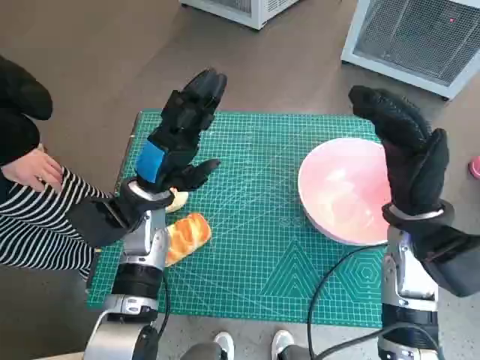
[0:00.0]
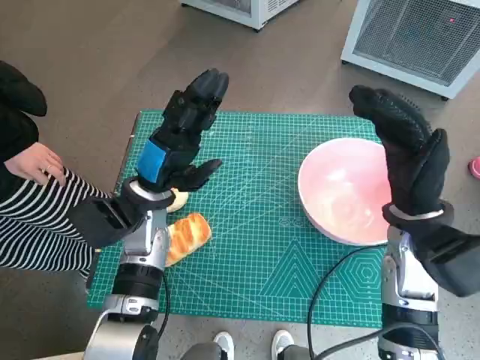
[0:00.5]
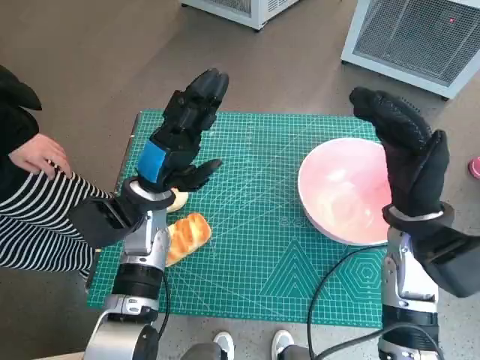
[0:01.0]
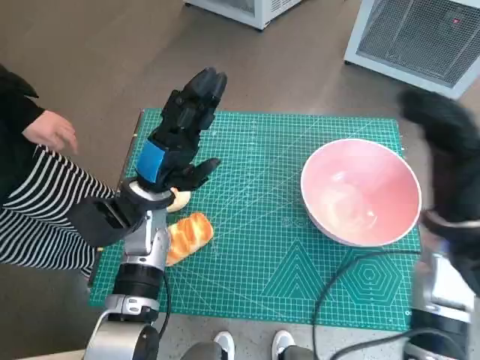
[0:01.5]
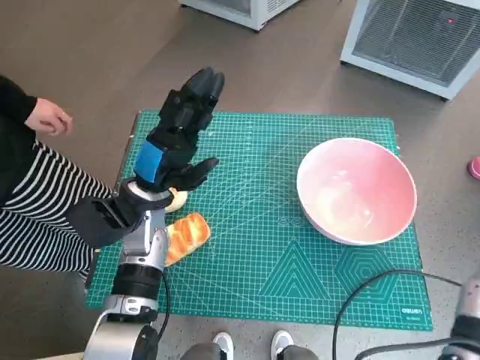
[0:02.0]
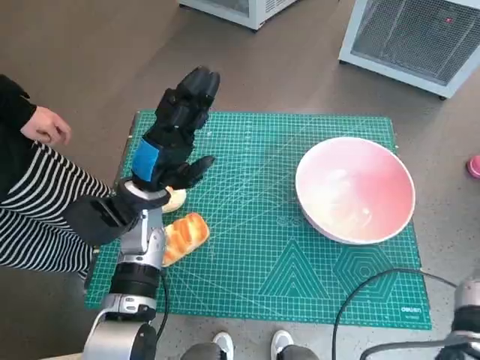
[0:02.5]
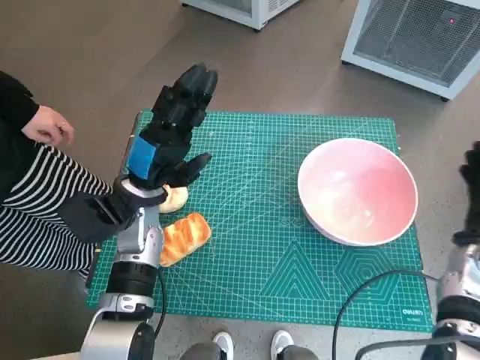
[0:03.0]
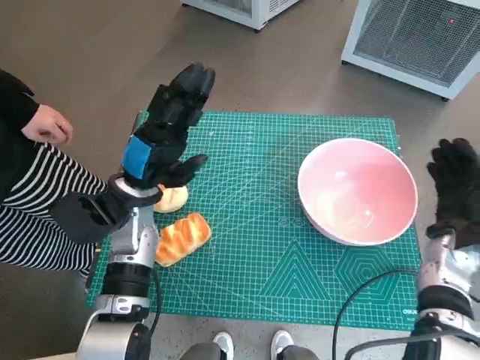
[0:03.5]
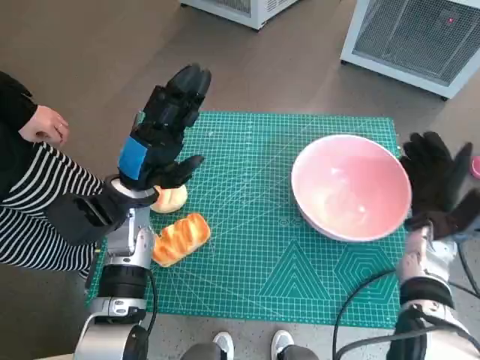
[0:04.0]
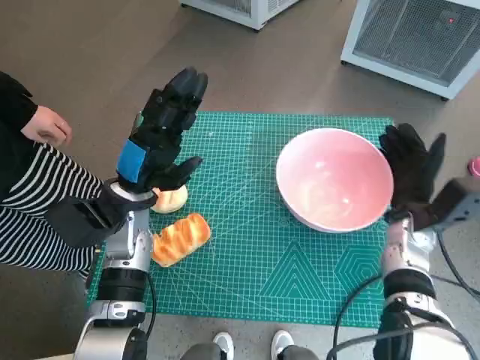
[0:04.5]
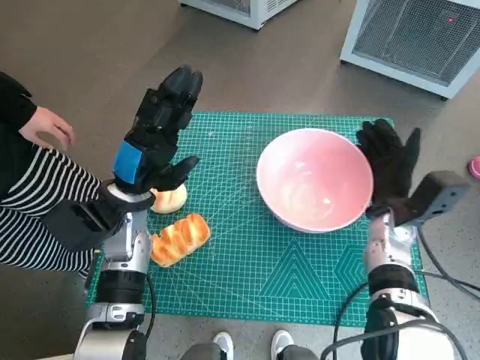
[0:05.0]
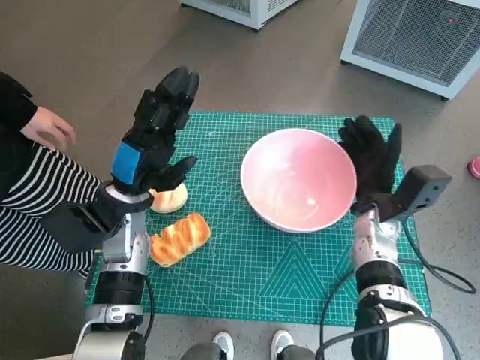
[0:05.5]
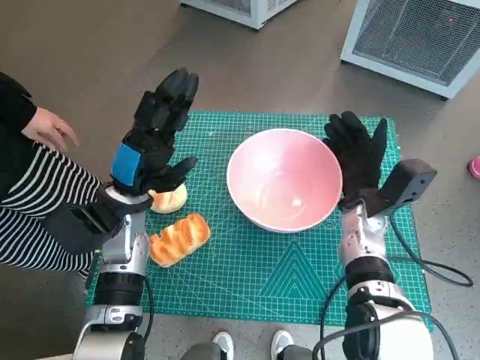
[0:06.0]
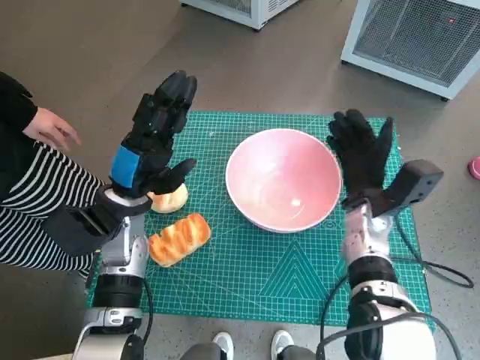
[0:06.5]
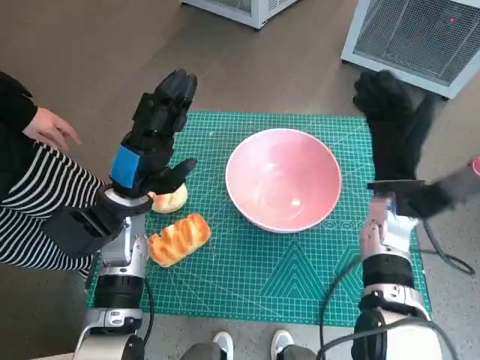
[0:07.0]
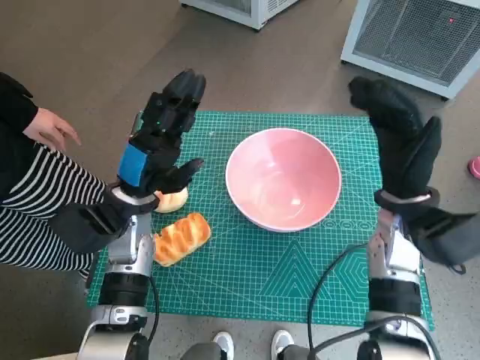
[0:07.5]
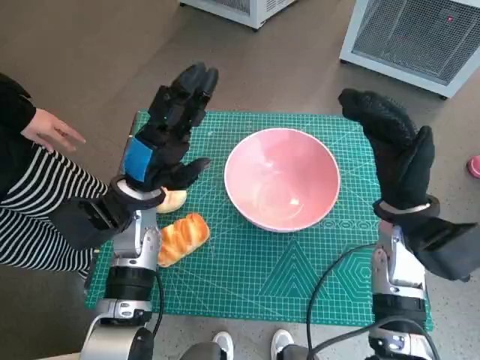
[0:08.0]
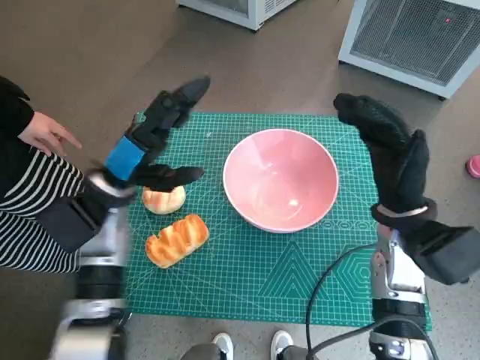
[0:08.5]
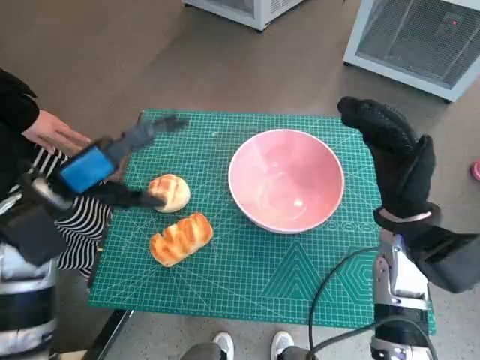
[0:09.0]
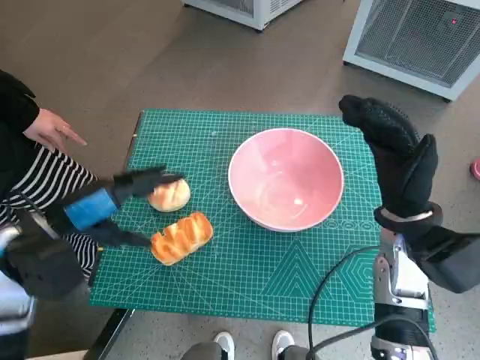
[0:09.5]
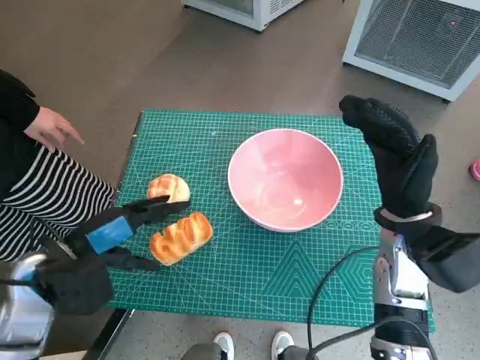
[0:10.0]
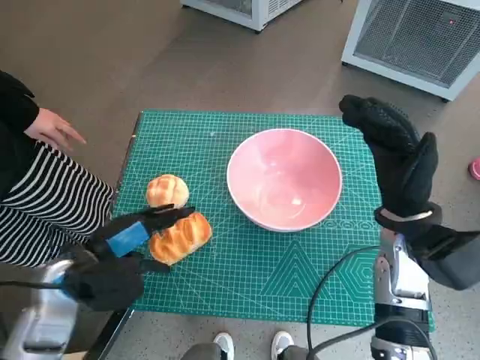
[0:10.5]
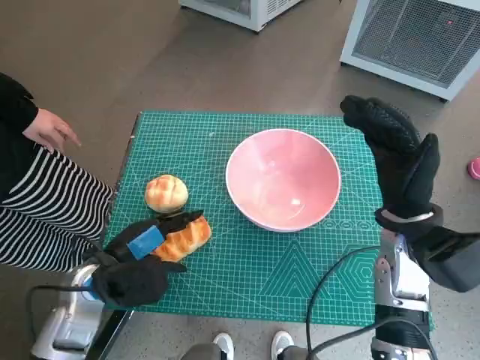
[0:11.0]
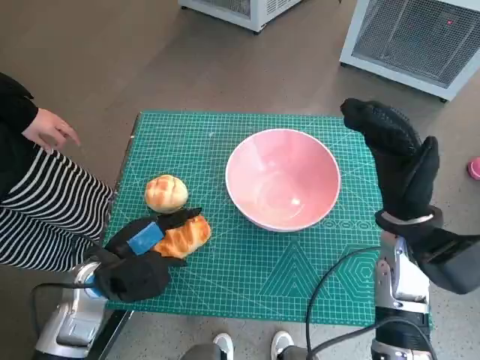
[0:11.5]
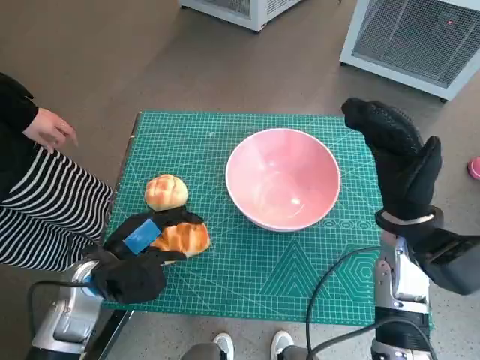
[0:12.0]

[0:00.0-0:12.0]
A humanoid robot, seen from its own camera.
Task of the whole recording: Push the bowl into the center of the table and put the bread into the bowl.
Step, 0:00.0 to 0:06.5: Move the pink bowl to the center of table with right hand.
Step, 0:07.0 to 0:11.5: Grasp the long bread with left hand.
0:02.0 to 0:04.0: The right hand goes approximately 10 cm downward and forward.
0:04.0 to 0:06.0: The right hand shifts about 10 cm to the left.
0:06.0 to 0:08.0: The right hand travels upward by some 5 cm.
0:08.0 to 0:10.0: The left hand travels backward and to the left by about 10 cm.
0:10.0 to 0:12.0: The left hand moves downward, approximately 5 cm.

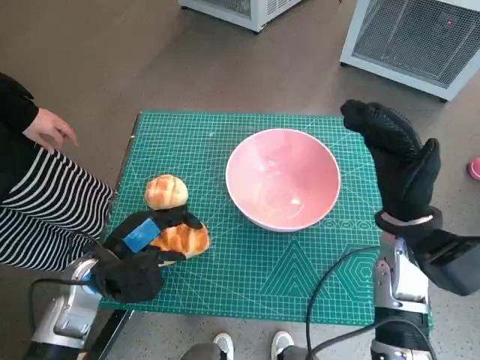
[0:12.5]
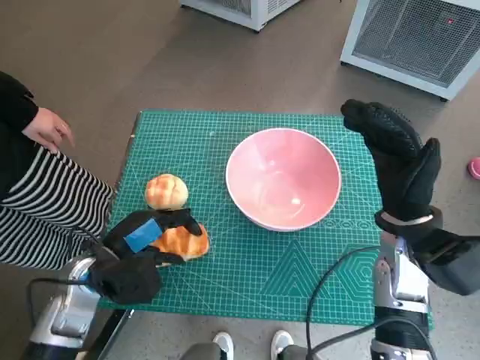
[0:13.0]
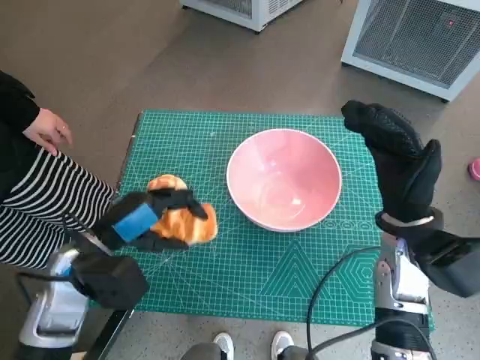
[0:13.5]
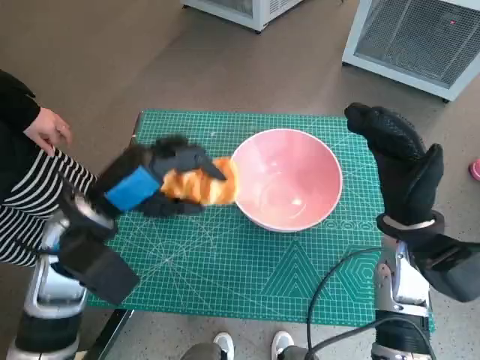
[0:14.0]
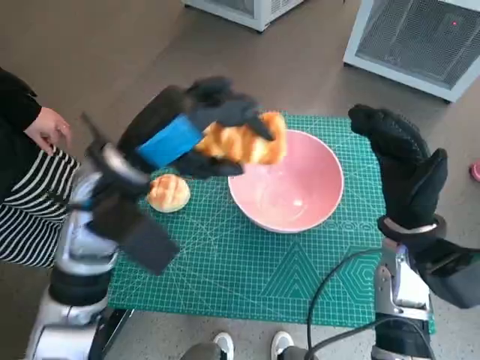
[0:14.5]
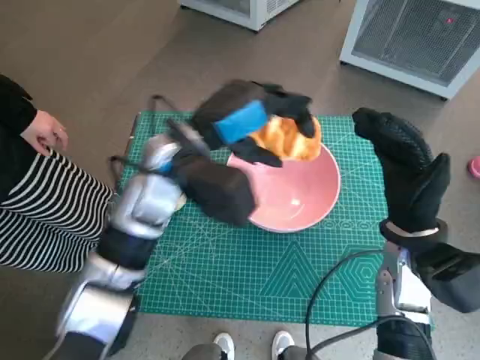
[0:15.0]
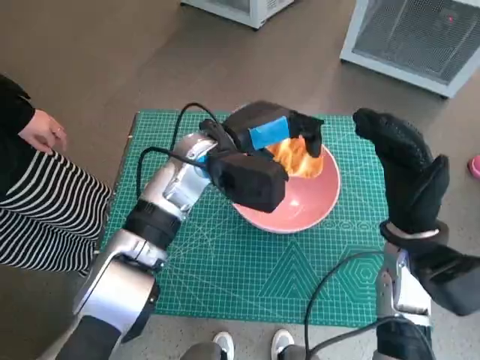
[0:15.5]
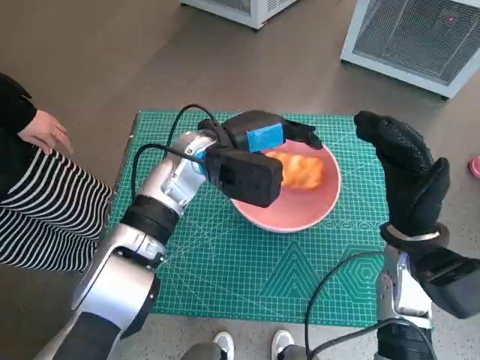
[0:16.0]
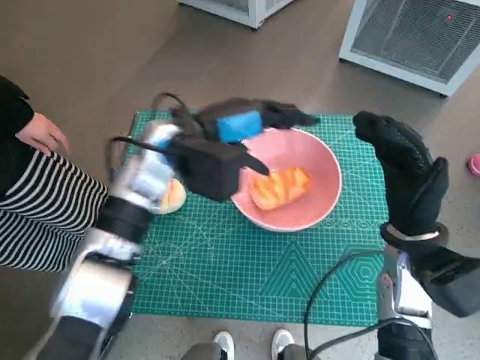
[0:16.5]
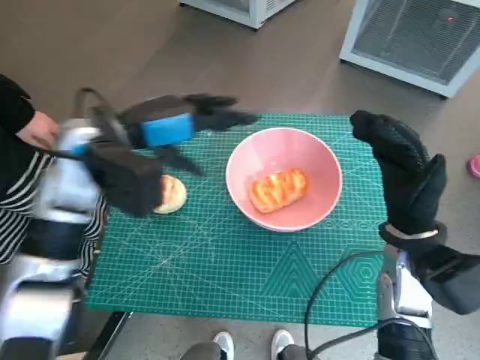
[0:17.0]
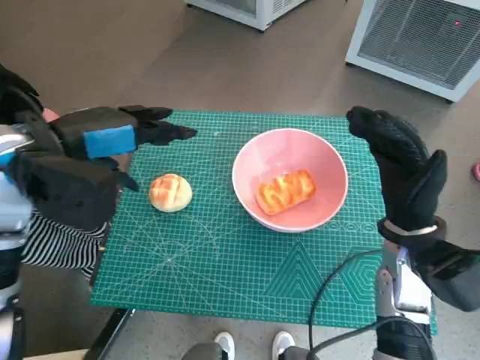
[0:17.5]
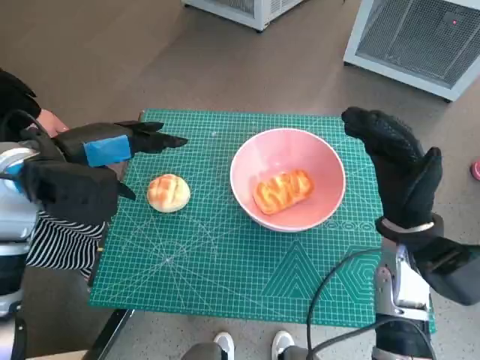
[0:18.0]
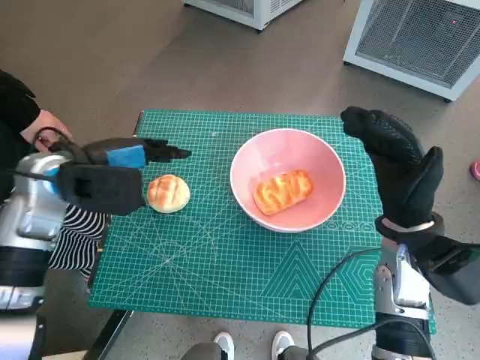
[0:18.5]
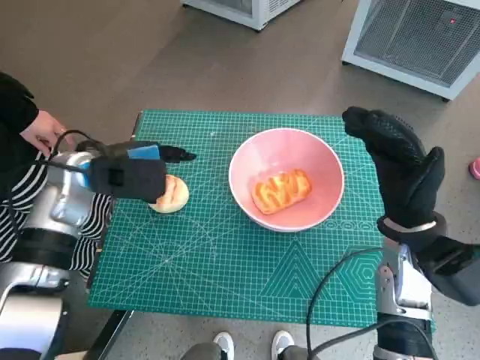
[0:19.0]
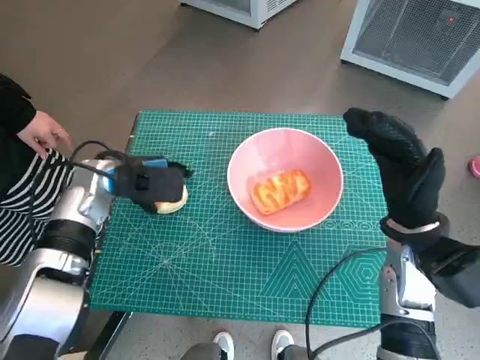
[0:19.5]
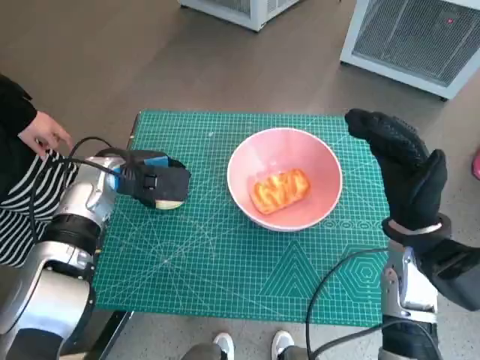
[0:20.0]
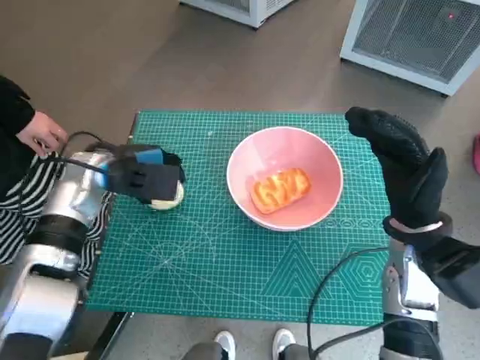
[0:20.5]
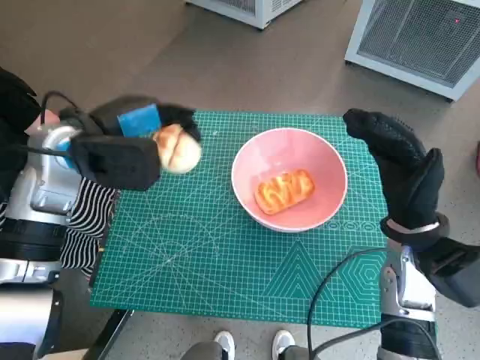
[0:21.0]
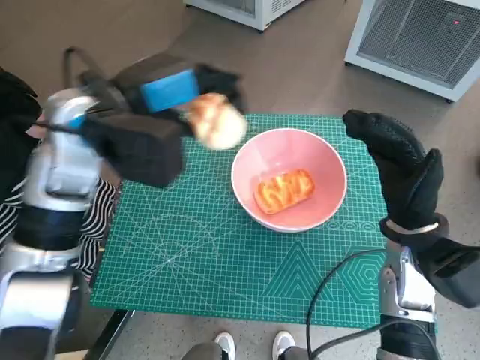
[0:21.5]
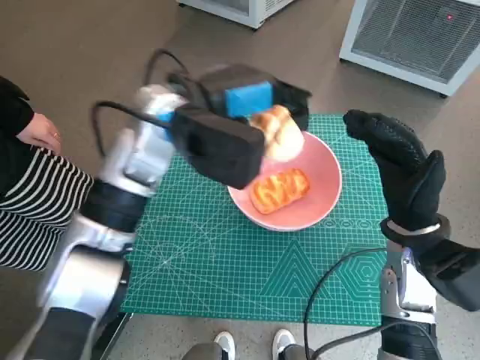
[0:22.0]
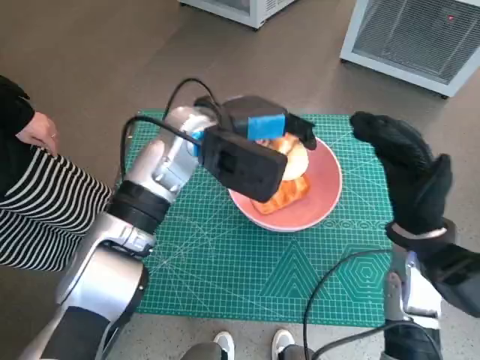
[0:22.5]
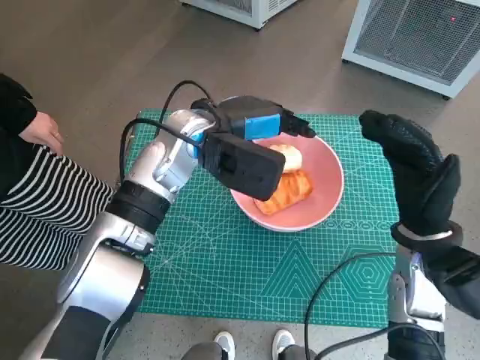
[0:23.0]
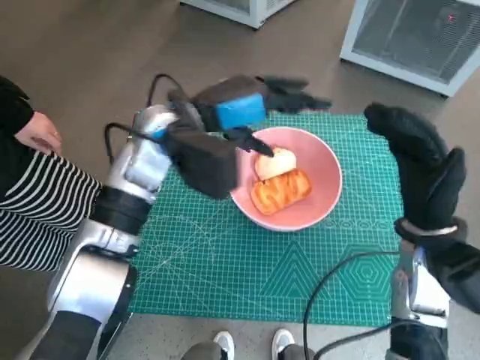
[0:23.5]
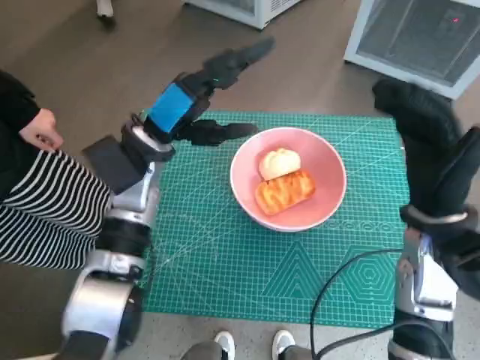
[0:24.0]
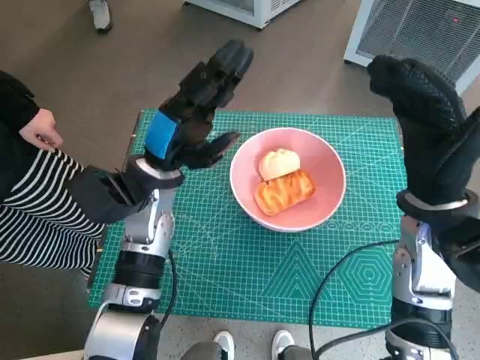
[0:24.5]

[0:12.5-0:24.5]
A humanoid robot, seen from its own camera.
Task of the whole recording: Push the bowl into the center of the table and put the bread into the bowl.
Step, 0:12.5 to 0:16.0: Place the long bread in pink bowl with left hand.
Step, 0:16.5 to 0:20.0: Grasp the round bread with left hand.
Step, 0:20.5 to 0:23.0: Place the round bread in pink bowl with left hand.
0:12.5 to 0:14.5: The left hand travels upward and to the right by about 15 cm.
0:14.5 to 0:16.5: The left hand shifts about 10 cm forward and to the right.
0:16.5 to 0:18.5: The left hand travels to the left by approximately 15 cm.
0:18.5 to 0:20.5: The left hand is displaced downward by some 5 cm.
0:20.5 to 0:22.5: The left hand shifts some 15 cm to the right and upward.
0:22.5 to 0:24.5: The right hand goes about 5 cm upward. The left hand travels to the left and downward by about 10 cm.

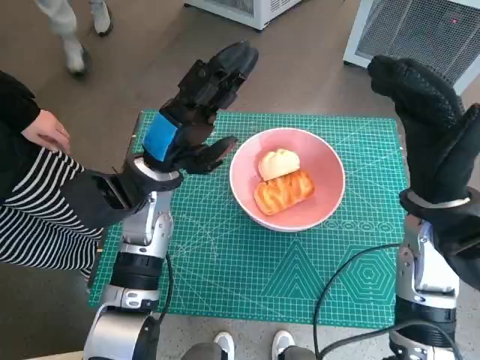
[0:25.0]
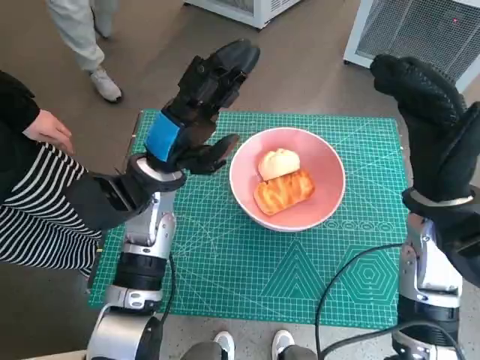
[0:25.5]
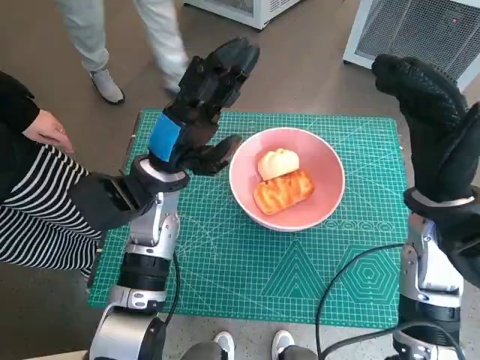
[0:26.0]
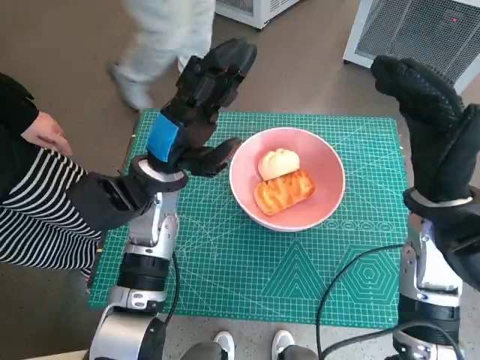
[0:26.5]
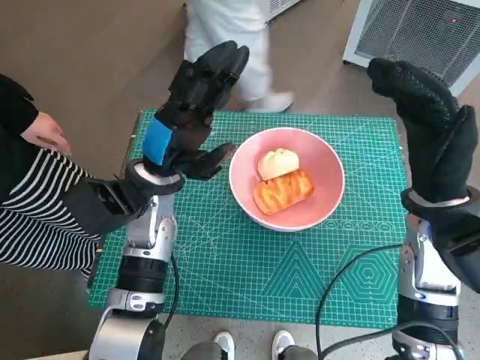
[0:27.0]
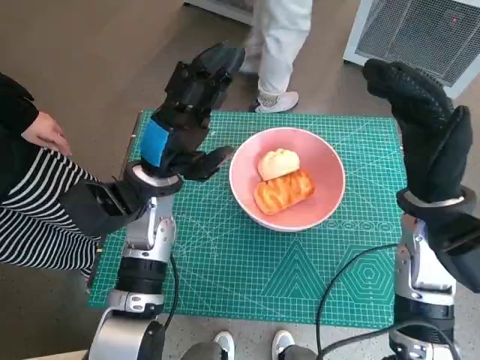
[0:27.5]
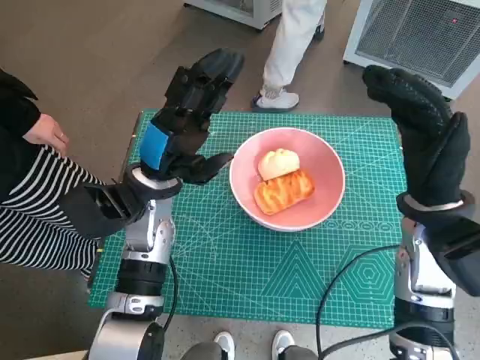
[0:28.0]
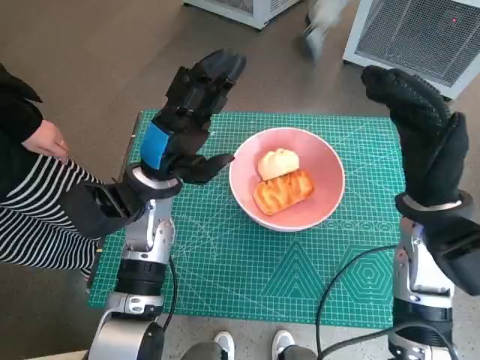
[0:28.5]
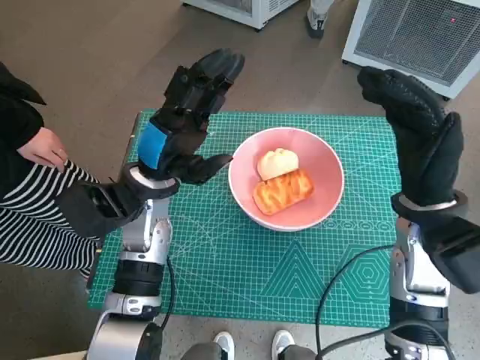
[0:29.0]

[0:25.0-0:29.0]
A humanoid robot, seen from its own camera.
Task of the whole recording: Push the bowl into the center of the table and put the bread into the bowl.
0:25.0 to 0:27.0: Neither hand changes place.
